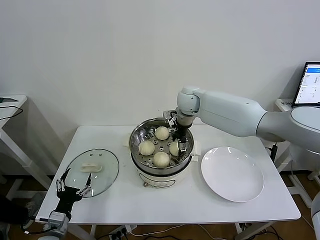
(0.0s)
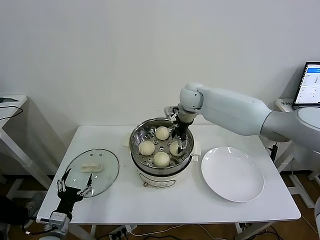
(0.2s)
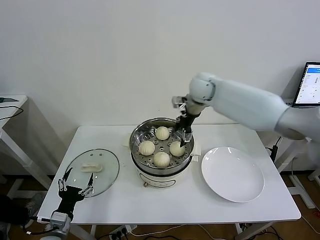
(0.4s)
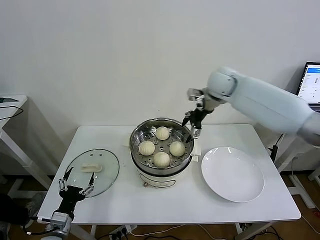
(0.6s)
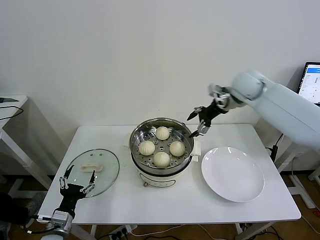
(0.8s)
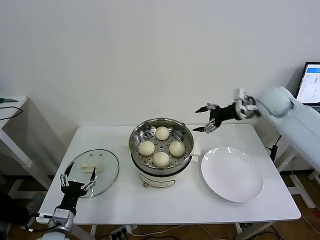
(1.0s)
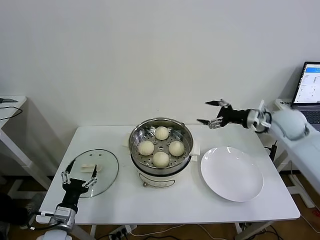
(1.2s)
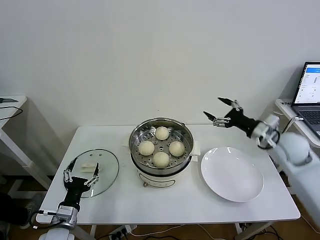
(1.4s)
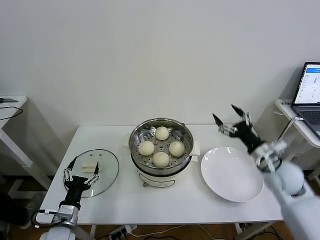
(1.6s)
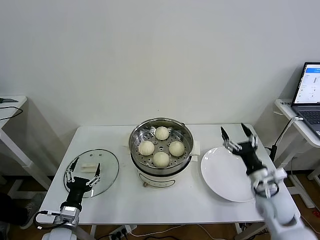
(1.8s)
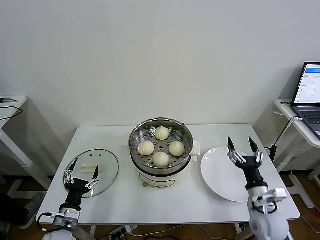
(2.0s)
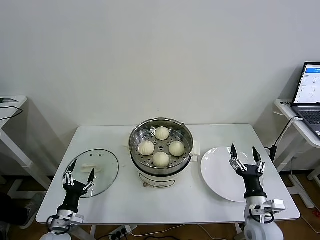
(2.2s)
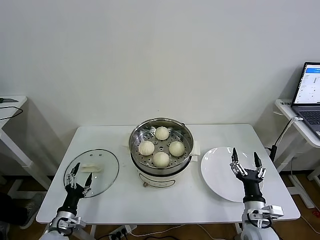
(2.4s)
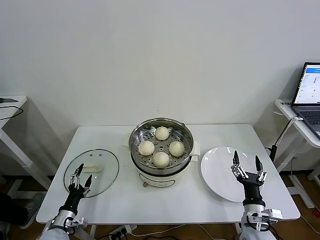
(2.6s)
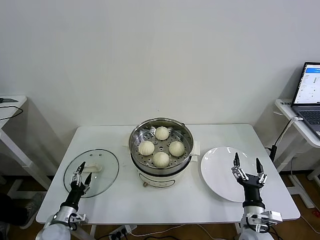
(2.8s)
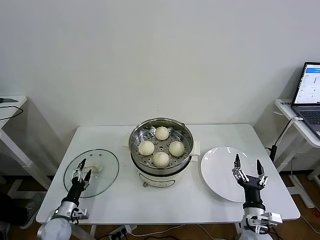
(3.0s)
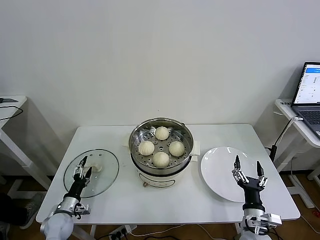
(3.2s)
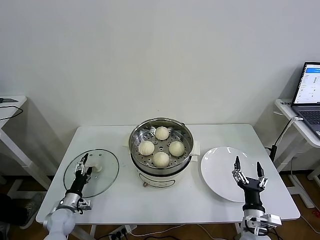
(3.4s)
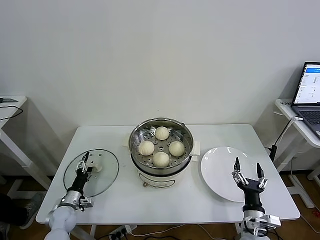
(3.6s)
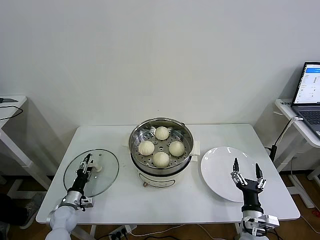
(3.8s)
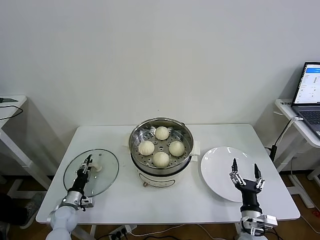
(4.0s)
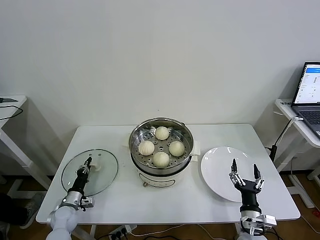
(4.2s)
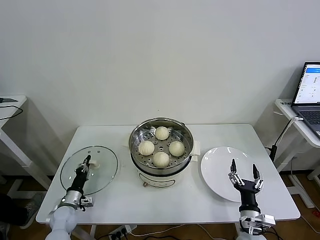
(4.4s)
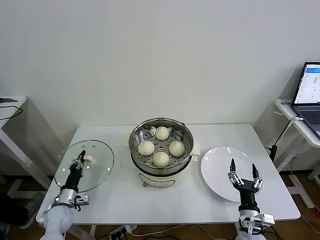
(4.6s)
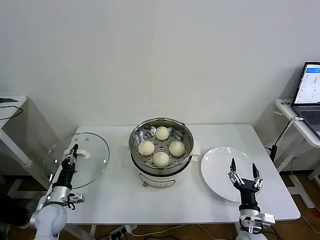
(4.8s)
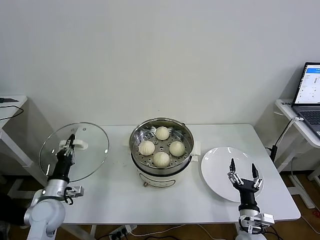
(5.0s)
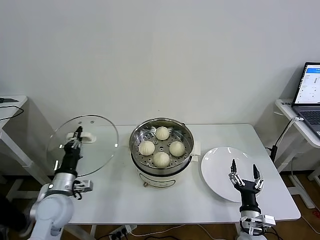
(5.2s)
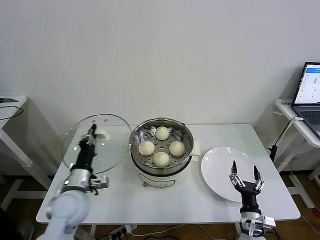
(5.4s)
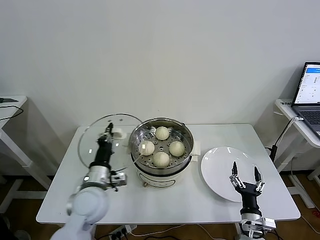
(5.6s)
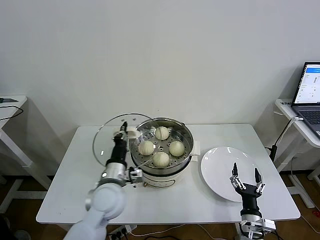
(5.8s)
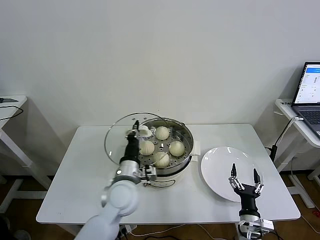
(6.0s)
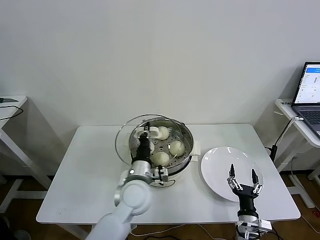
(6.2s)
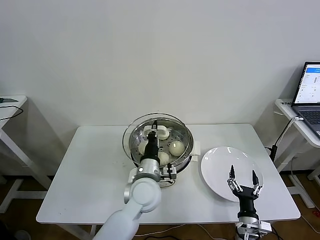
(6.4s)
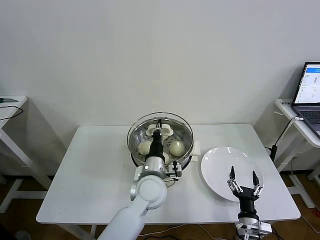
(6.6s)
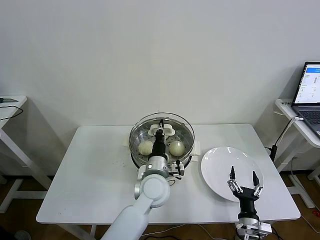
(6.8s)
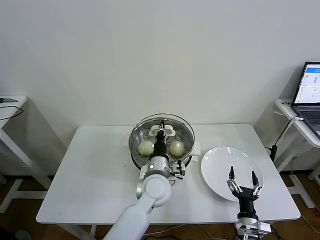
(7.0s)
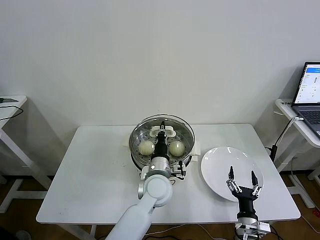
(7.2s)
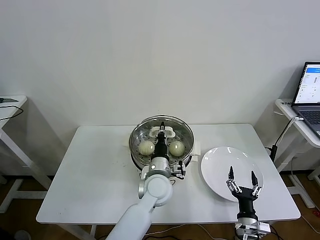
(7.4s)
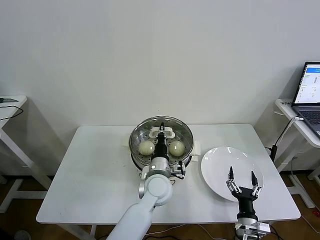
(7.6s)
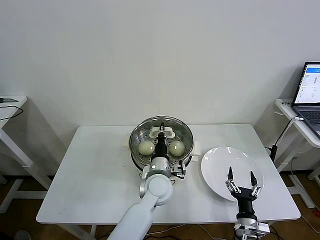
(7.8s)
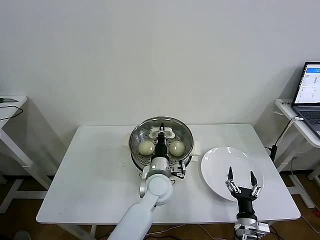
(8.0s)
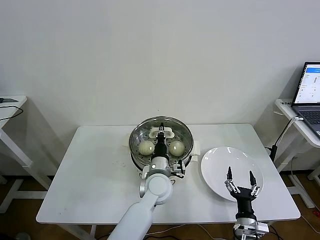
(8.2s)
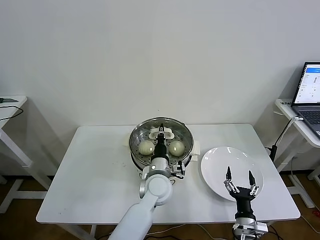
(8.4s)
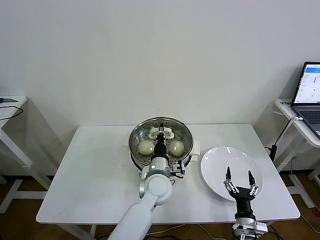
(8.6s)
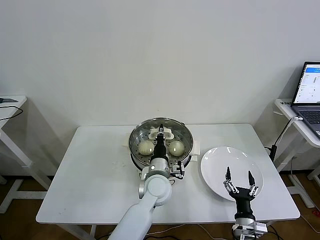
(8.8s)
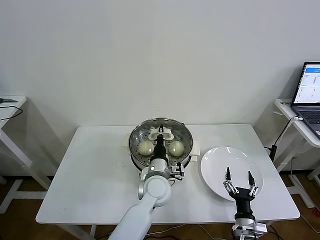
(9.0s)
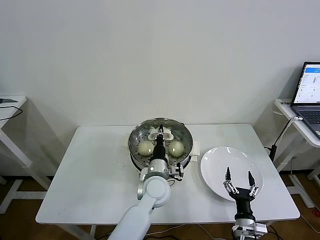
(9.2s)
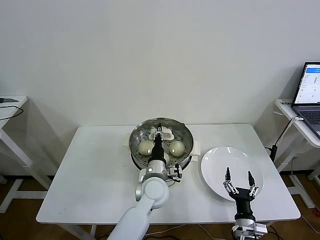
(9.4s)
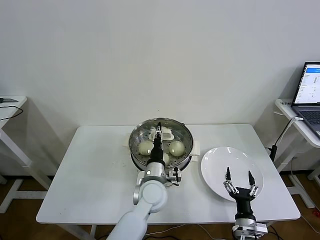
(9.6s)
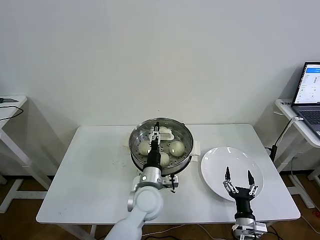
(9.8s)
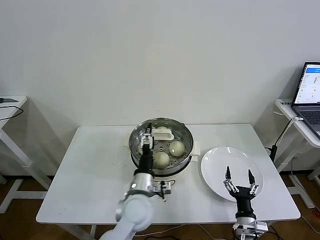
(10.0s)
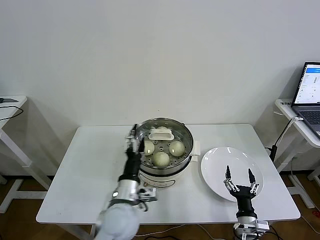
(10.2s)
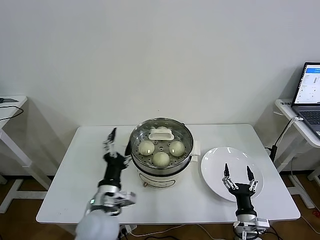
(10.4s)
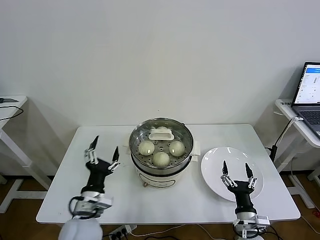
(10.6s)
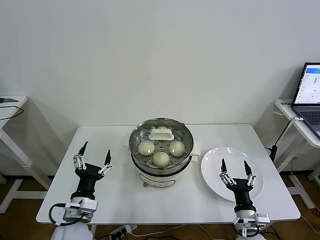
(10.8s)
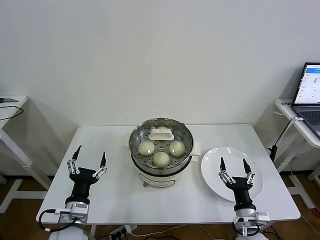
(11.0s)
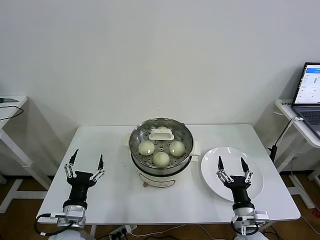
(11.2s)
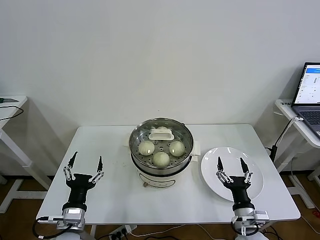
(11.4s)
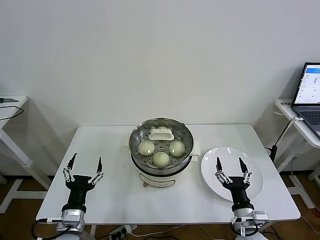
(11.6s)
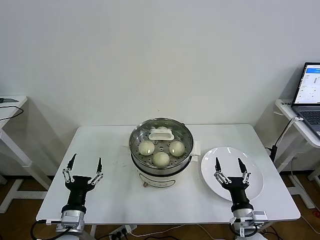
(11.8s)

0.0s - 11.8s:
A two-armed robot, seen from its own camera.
Task of the whole recording: take steamed baozi put them in steamer then cover it.
Step, 0.4s - 4.4s: Grasp the pot lid with left gripper.
Step, 4.6s - 10.0s: Place the pot lid on the steamer with left gripper.
0.0s - 1.4s: The right gripper moves to the right and backward, about 35 cm.
1.4s - 3.0s: The left gripper heads downward, to the left and forward, covering some 15 cm. The right gripper moves backward, downward and to the left, about 30 cm.
3.0s - 4.4s: The left gripper travels forward by roughly 5 cm, and closes its fingers.
4.4s - 6.0s: The left gripper heads to the right and upward, covering about 35 cm.
6.0s - 7.4s: The left gripper moves to the right, some 10 cm.
7.4s - 8.8s: The grippers stay close to where they were, moving slightly.
8.8s - 10.4s: The left gripper moves to the left and backward, about 15 cm, and opens up.
10.4s - 11.8s: The left gripper shifts some 15 cm to the left, backward and downward. The right gripper moves upward, roughly 5 cm.

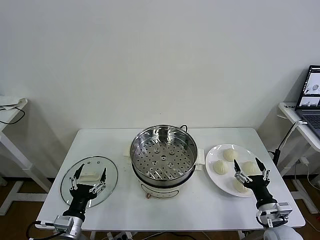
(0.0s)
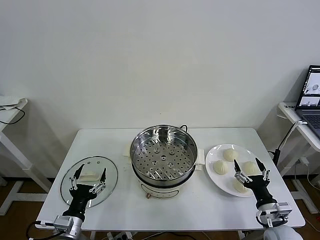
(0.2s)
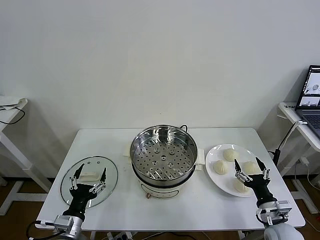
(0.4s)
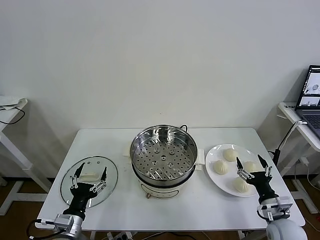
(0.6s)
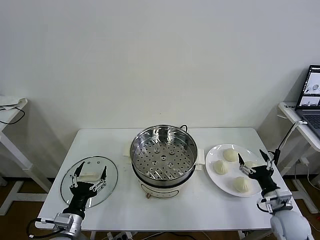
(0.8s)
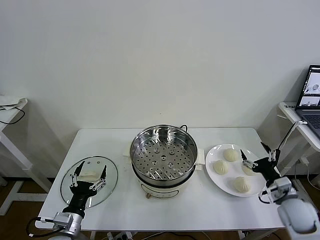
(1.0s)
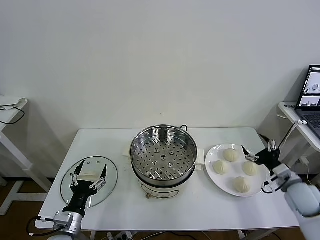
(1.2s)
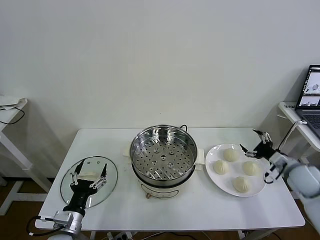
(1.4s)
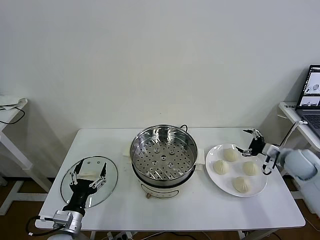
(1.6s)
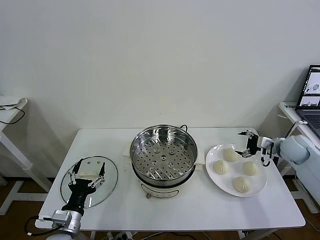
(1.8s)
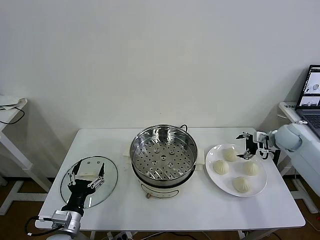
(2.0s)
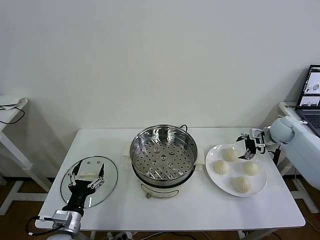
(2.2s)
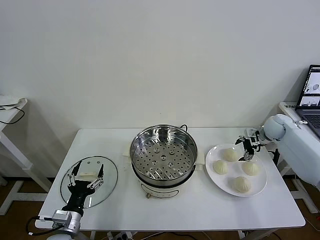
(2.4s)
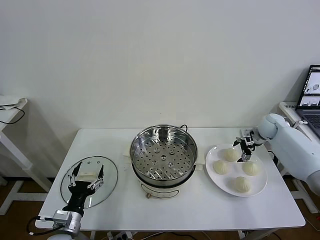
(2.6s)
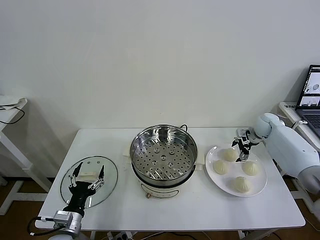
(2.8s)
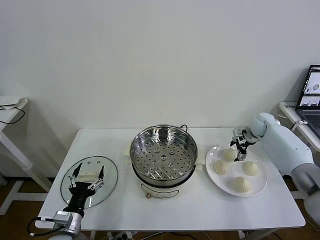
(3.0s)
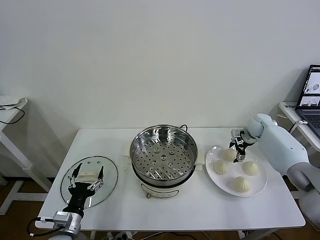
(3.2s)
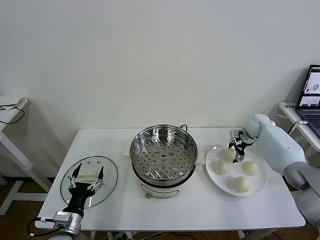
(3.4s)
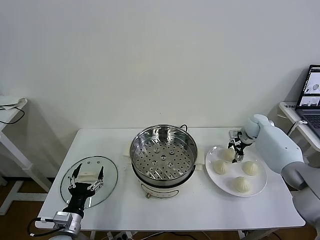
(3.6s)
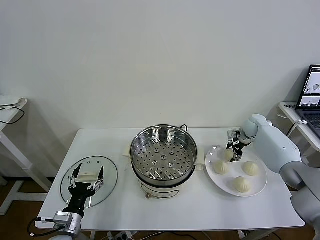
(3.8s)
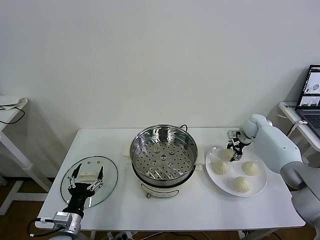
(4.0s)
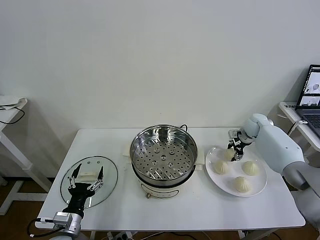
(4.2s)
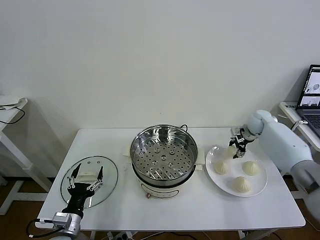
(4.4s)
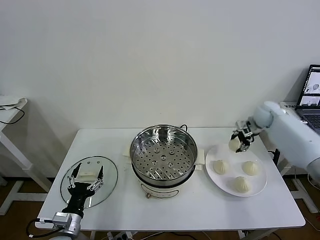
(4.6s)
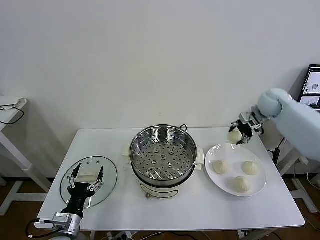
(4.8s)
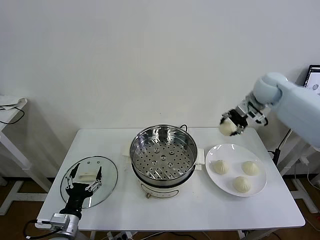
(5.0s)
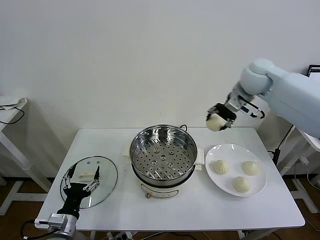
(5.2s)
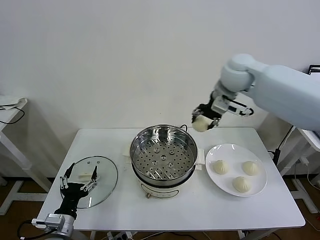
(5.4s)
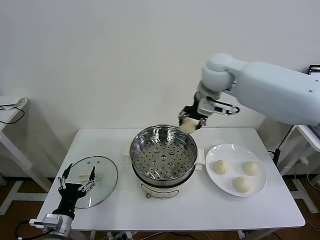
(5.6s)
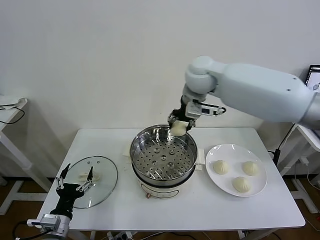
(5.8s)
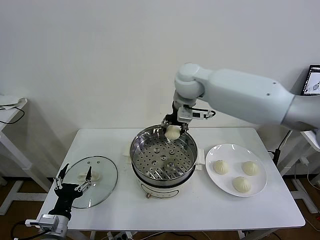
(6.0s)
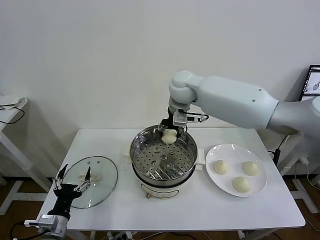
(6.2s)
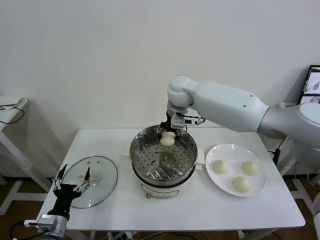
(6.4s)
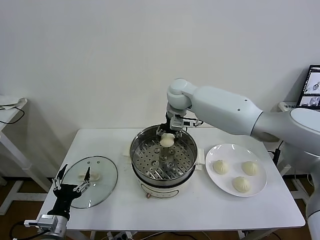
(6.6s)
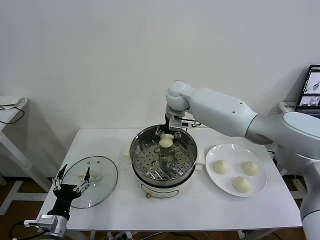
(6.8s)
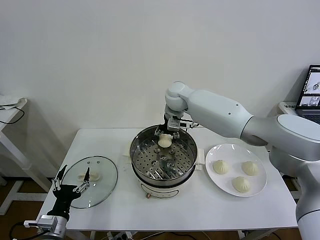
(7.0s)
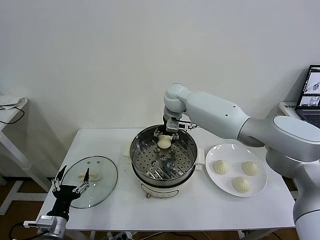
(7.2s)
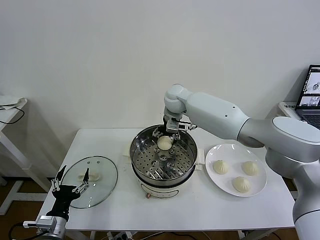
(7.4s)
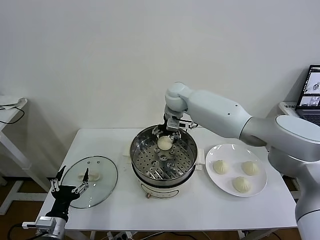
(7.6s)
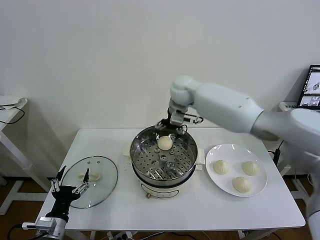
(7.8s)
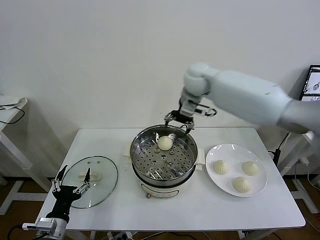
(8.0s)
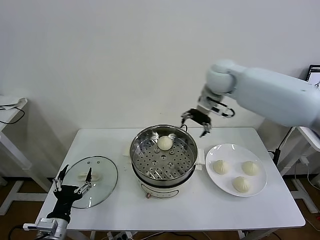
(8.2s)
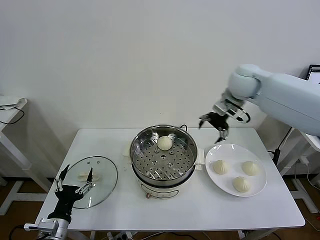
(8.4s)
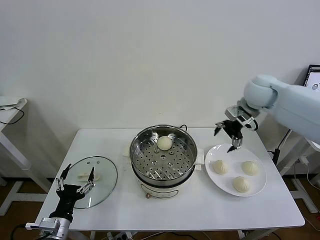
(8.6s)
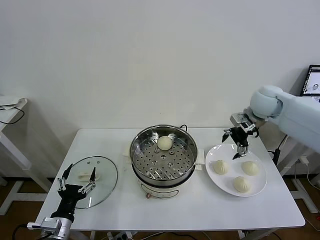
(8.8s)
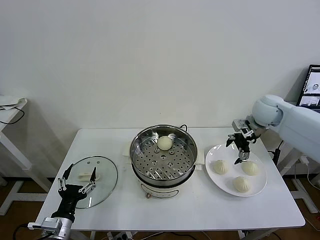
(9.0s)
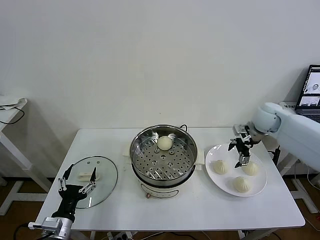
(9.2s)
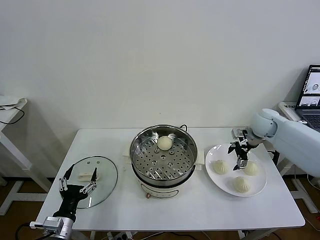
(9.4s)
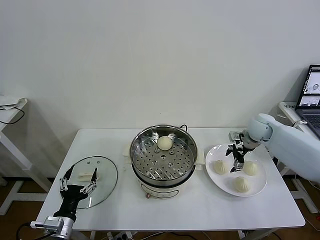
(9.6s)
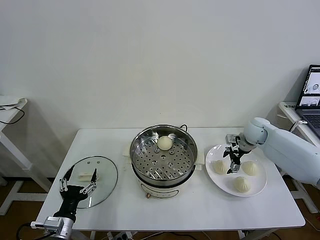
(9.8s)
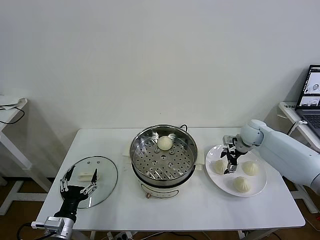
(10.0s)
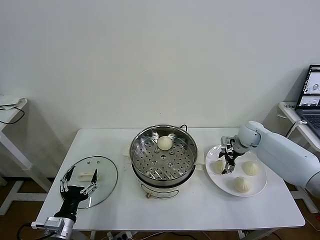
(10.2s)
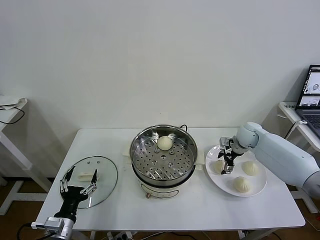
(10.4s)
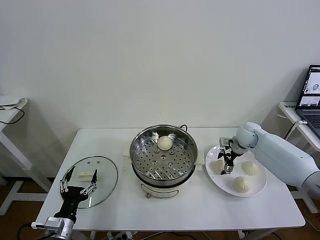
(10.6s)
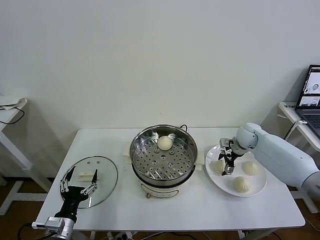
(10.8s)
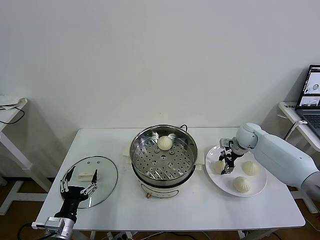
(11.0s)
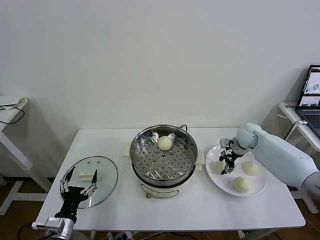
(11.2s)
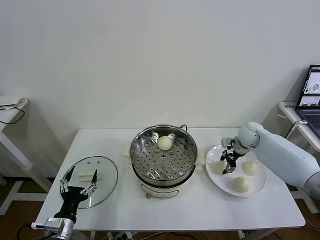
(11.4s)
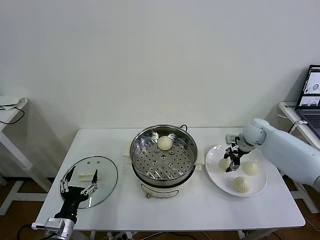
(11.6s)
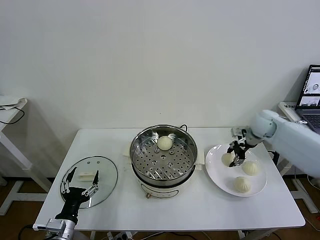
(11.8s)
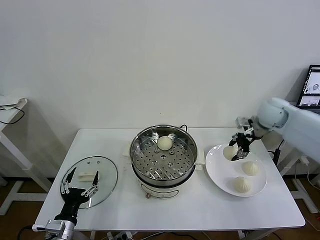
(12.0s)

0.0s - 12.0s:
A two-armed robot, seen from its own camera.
Task of the whole recording: take steamed baozi put them in steamer then cover it.
Step, 0.0s - 4.0s: Grasp the baozi in the plate with right gripper.
Step, 4.2s - 7.4s: Place the baozi on the steamer with right gripper.
Step, 7.8s - 11.2s: Grasp the baozi in the plate with right gripper.
1.6s - 3.0s: The right gripper goes some 15 cm forward.
3.0s - 4.4s: The right gripper closes its fingers.
4.4s - 6.0s: The right gripper shifts roughly 40 cm to the left and upward.
6.0s - 7.6s: The right gripper shifts some 5 cm downward, and opens its fingers.
7.6s - 9.0s: The right gripper is displaced to the right by roughly 30 cm.
9.0s - 10.4s: The right gripper shifts about 15 cm downward.
10.4s - 12.0s: The right gripper is displaced upward by roughly 15 cm, and closes.
